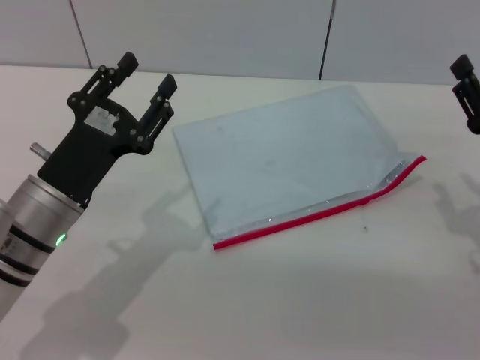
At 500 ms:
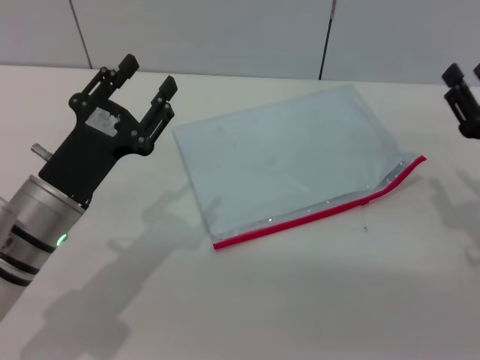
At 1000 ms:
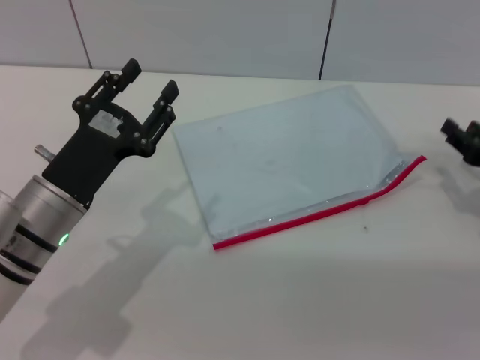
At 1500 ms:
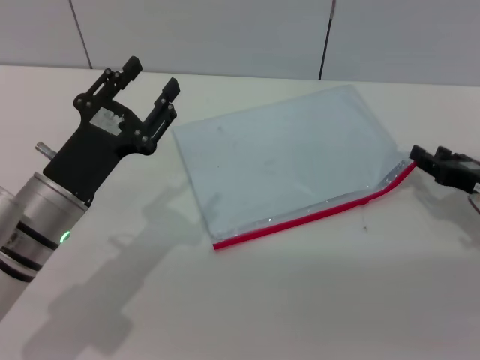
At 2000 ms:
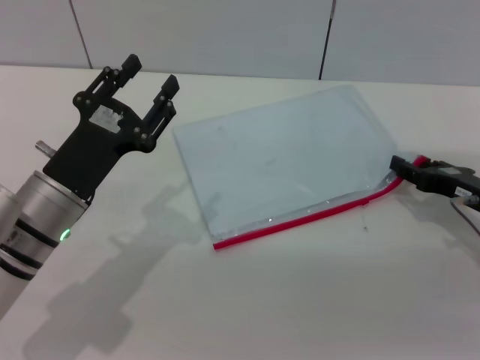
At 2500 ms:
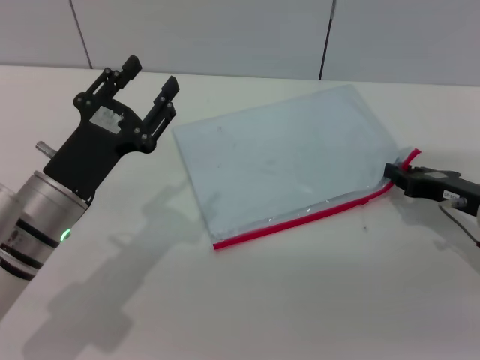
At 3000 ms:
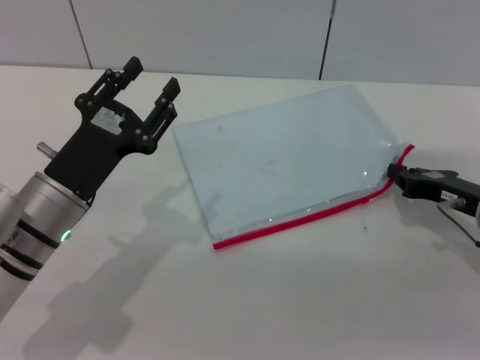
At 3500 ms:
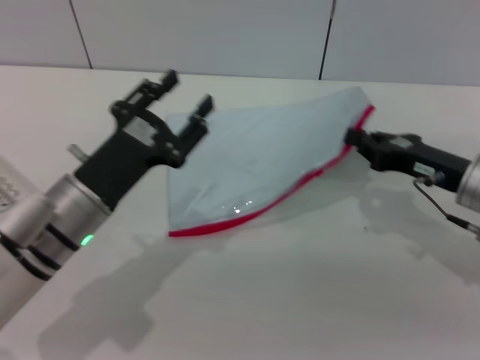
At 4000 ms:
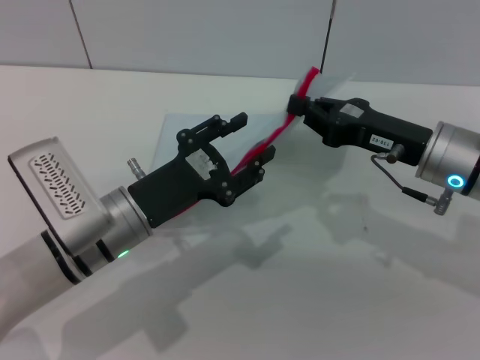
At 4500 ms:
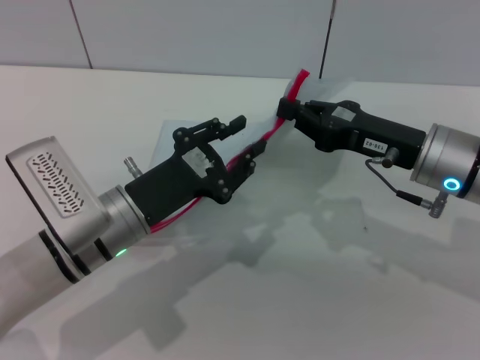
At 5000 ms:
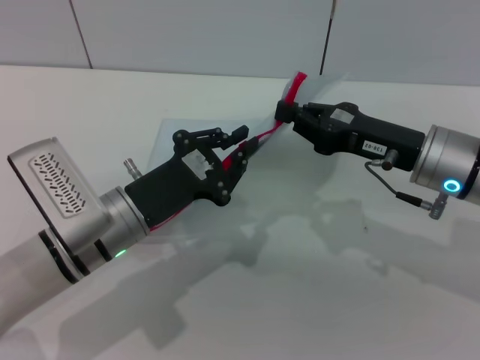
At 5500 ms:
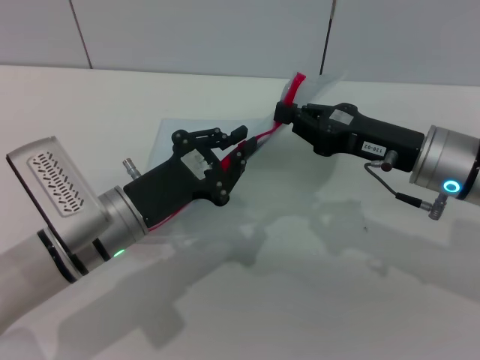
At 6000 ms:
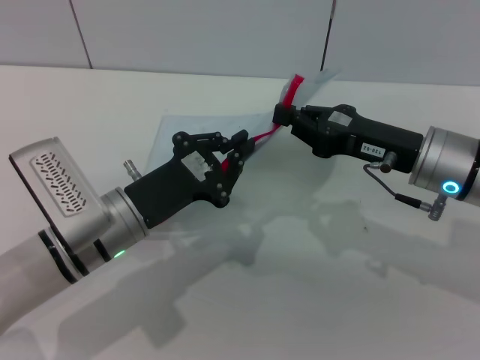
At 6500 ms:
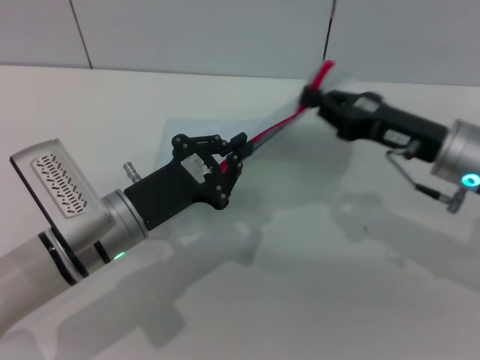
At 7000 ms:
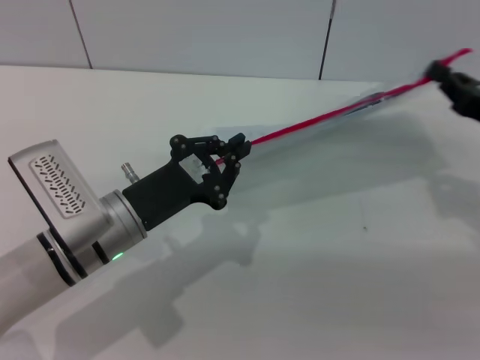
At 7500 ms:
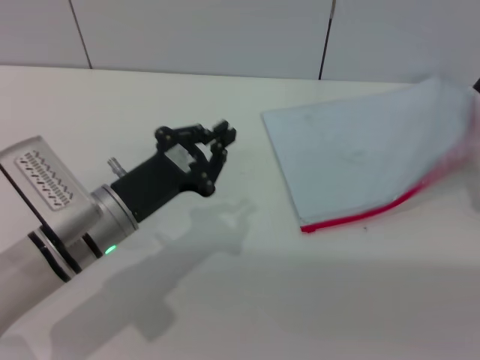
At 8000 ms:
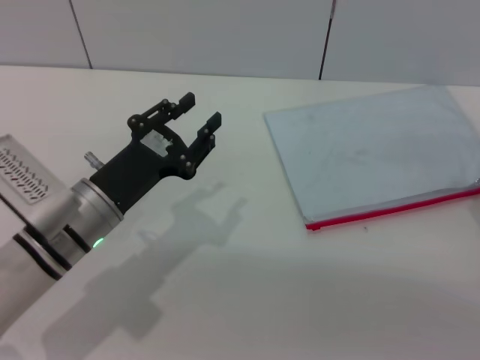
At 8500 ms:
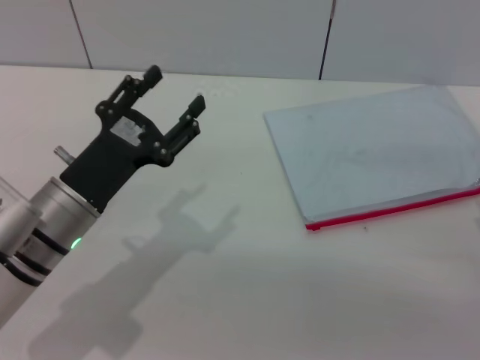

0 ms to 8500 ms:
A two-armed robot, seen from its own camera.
Step, 0 ms to 3500 ms: Pick up the transparent plastic bag with the right gripper.
0 ms to 2000 ms: The right gripper changes place by roughly 5 cm.
2000 ms to 4000 ms: The right gripper shifts some 10 cm to the left and upward, and closes its fingers.
4000 ms to 6500 ms: The left gripper closes.
6500 ms to 8500 ms: The right gripper shifts roughly 15 cm to the right and backward, and opens up, while the left gripper opens up.
